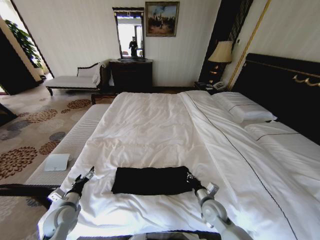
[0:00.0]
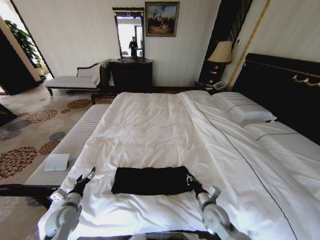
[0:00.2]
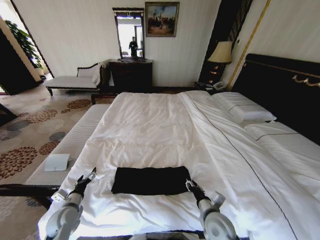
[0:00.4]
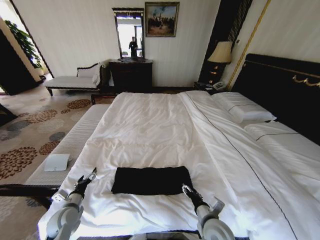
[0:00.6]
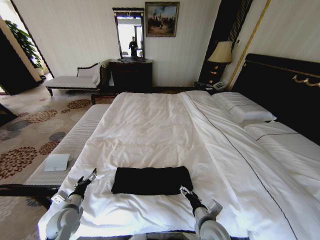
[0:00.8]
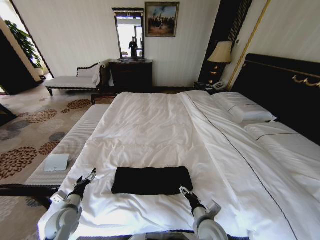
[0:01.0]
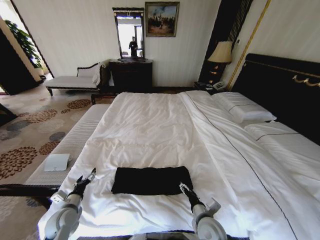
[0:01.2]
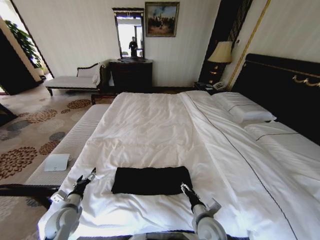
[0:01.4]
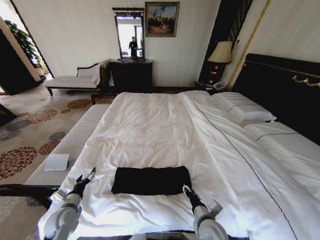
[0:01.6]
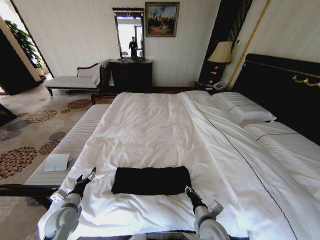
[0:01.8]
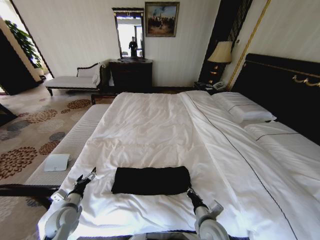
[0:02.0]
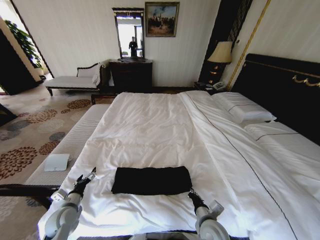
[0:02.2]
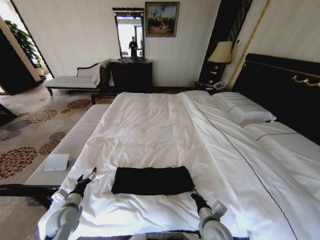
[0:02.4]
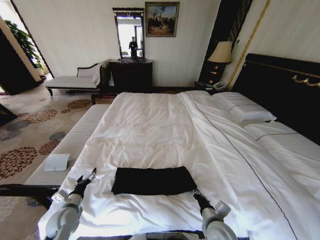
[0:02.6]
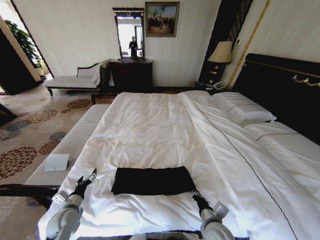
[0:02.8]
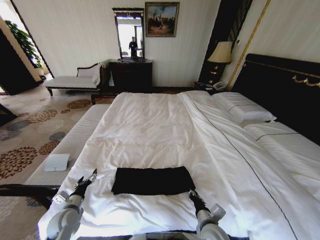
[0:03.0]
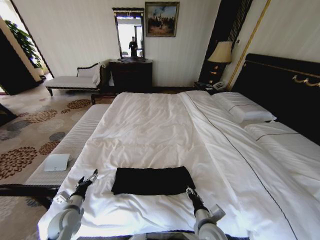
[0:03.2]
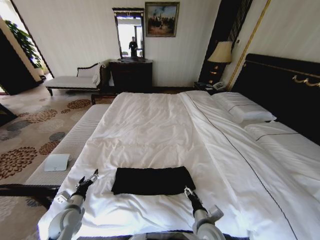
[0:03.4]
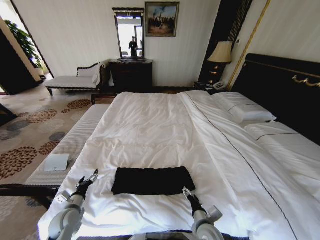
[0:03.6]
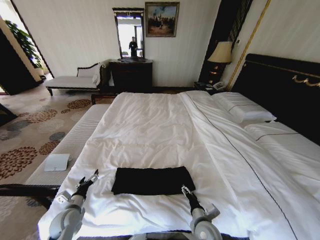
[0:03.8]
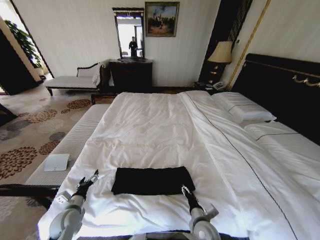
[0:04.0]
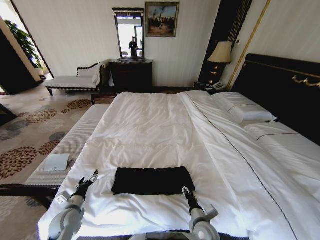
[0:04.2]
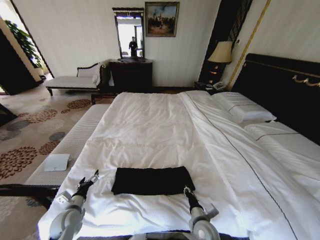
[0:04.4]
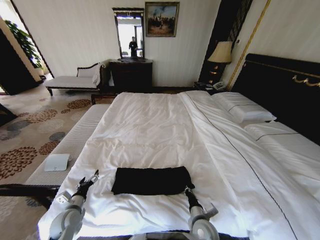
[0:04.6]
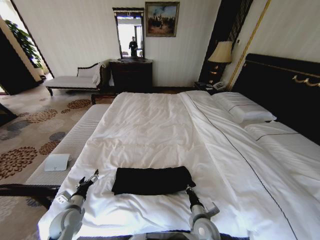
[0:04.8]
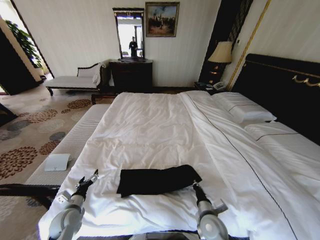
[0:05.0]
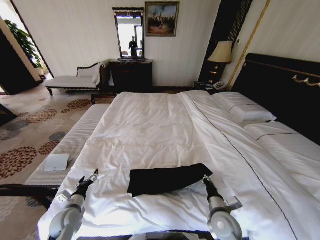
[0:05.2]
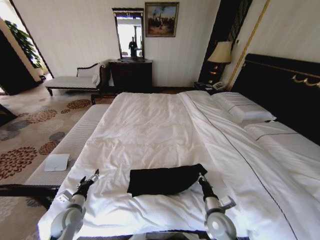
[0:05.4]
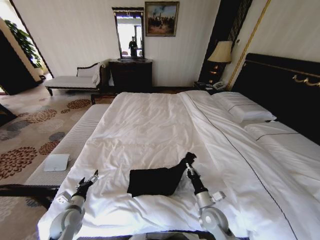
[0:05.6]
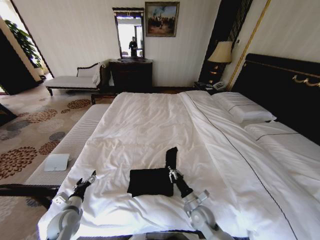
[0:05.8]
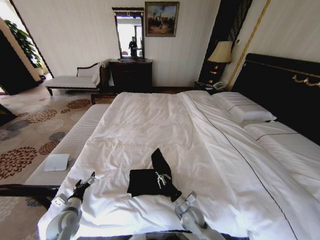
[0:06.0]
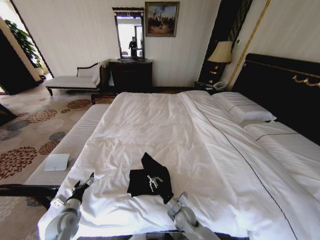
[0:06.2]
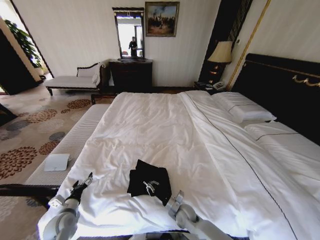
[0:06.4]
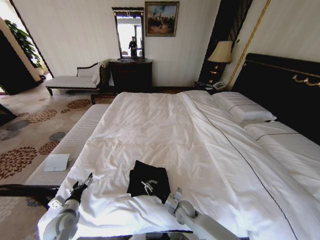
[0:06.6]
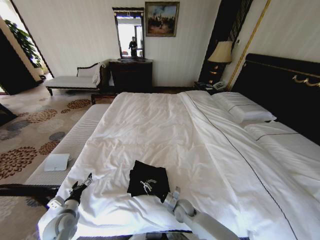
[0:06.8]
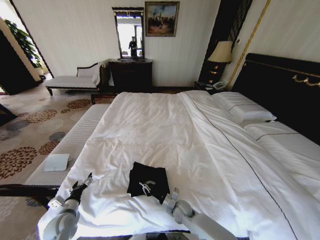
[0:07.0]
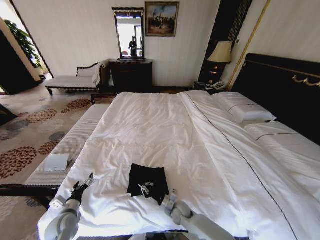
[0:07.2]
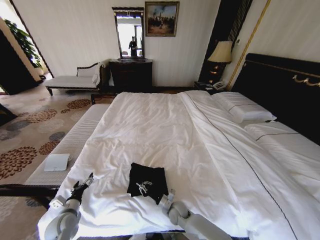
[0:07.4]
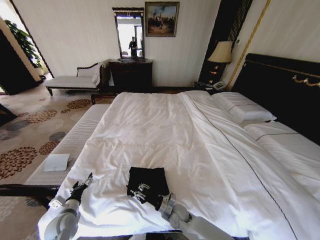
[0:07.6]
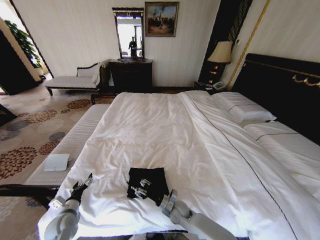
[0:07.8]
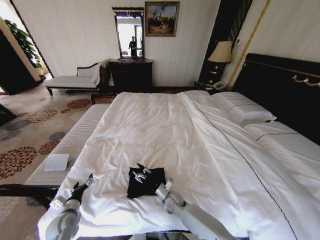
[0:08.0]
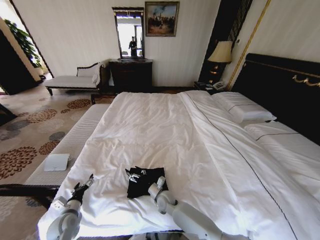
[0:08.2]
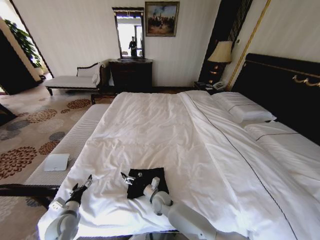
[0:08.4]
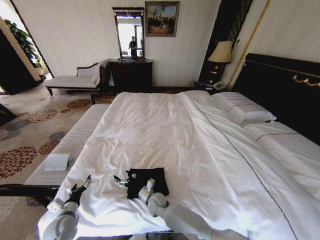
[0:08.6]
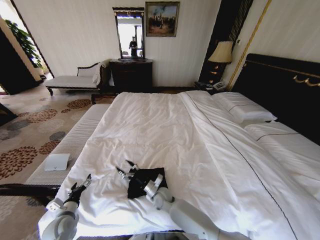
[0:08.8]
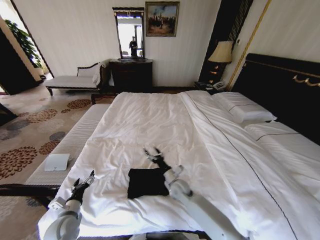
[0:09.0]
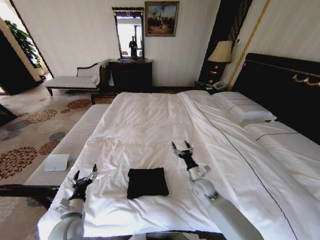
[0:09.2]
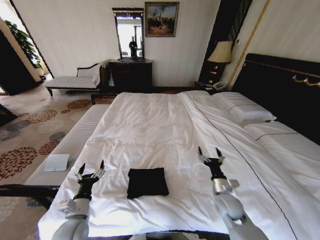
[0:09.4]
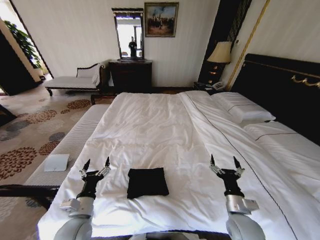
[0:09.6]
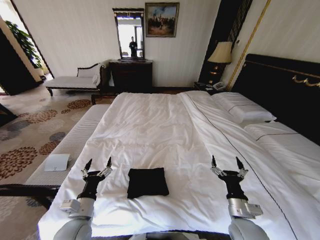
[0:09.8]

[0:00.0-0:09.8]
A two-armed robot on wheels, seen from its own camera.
Task of the whole recording: Fold the clothes on the bed.
0:00.0 to 0:01.4: The right gripper moves backward and to the left, about 10 cm, and opens up.
0:01.4 to 0:02.8: The right gripper closes.
0:02.8 to 0:04.2: The right gripper is displaced downward by approximately 5 cm, and opens its fingers.
0:04.2 to 0:05.6: The right gripper changes place by some 5 cm, and closes its fingers.
0:05.6 to 0:07.0: The right gripper heads to the left, downward and forward, covering approximately 15 cm.
0:07.0 to 0:08.4: The right gripper goes roughly 10 cm to the left, and opens up.
0:08.4 to 0:09.8: The left gripper is displaced to the right and upward by roughly 15 cm. The right gripper heads to the right, upward and backward, covering approximately 35 cm.

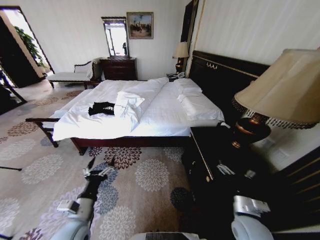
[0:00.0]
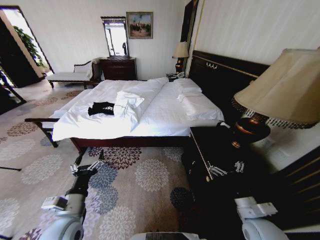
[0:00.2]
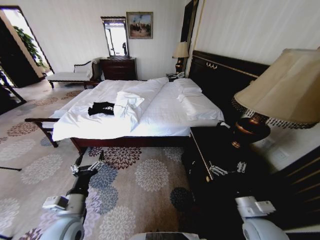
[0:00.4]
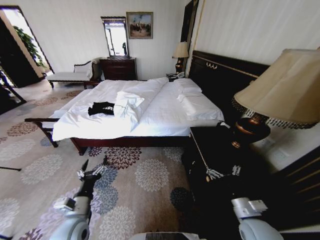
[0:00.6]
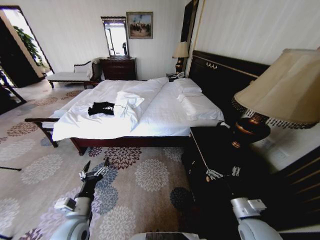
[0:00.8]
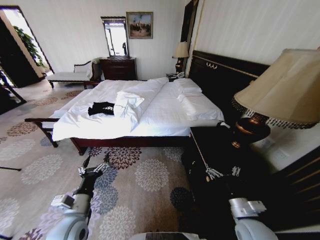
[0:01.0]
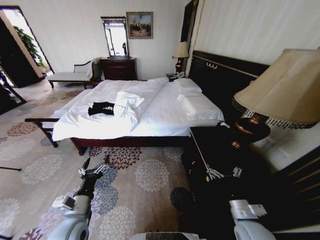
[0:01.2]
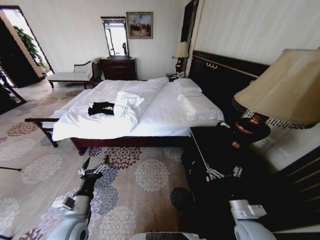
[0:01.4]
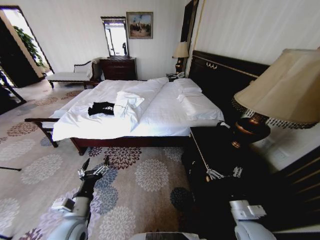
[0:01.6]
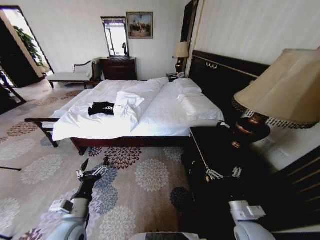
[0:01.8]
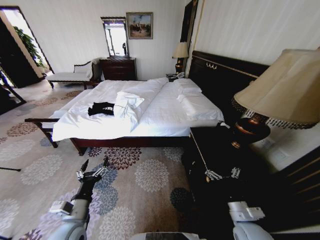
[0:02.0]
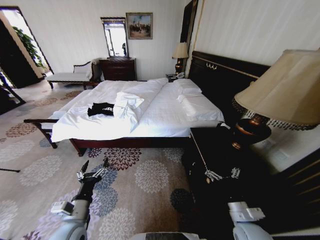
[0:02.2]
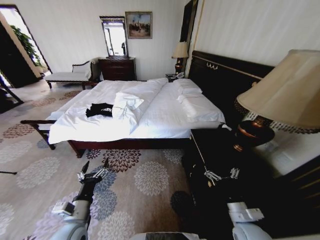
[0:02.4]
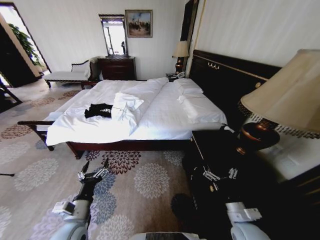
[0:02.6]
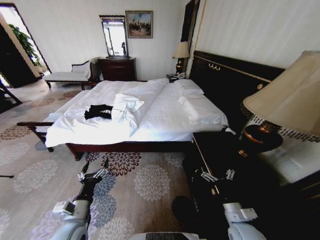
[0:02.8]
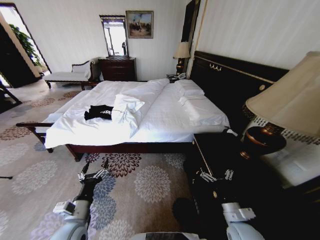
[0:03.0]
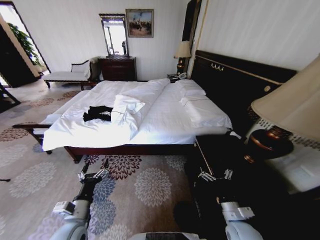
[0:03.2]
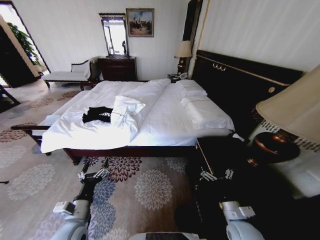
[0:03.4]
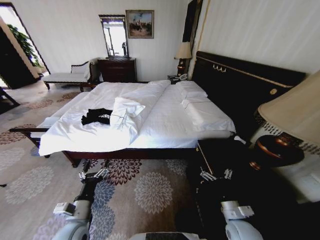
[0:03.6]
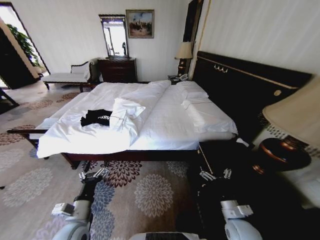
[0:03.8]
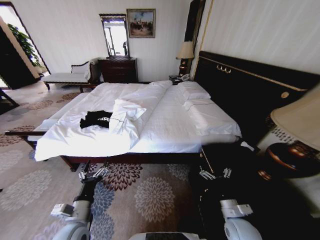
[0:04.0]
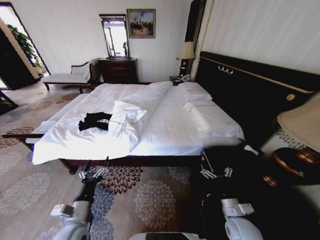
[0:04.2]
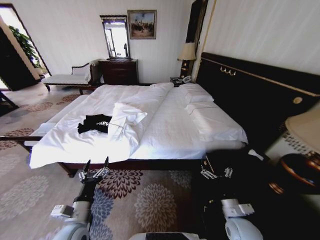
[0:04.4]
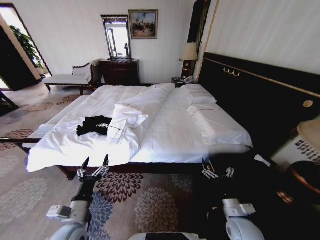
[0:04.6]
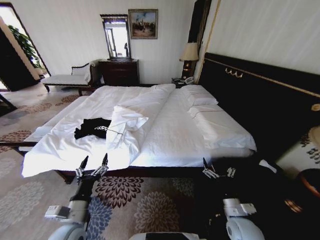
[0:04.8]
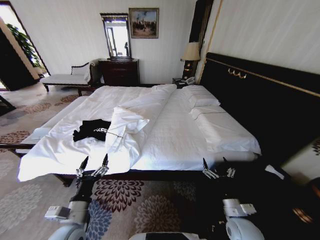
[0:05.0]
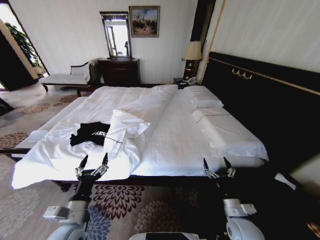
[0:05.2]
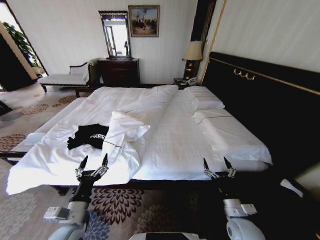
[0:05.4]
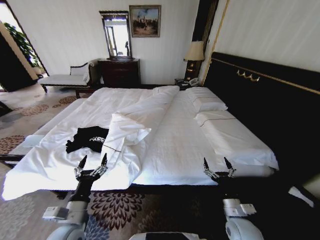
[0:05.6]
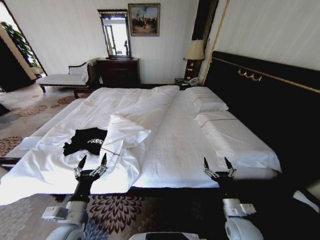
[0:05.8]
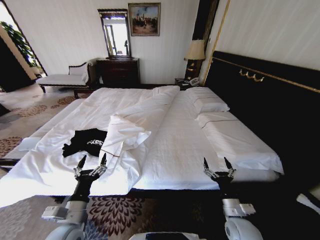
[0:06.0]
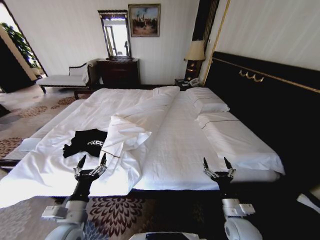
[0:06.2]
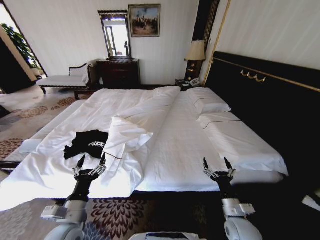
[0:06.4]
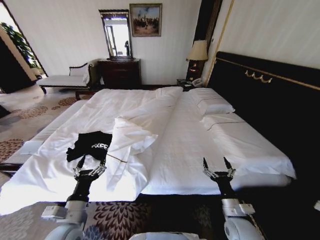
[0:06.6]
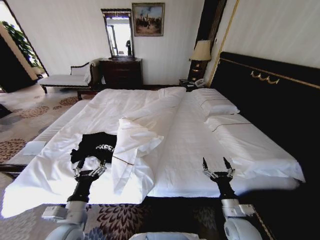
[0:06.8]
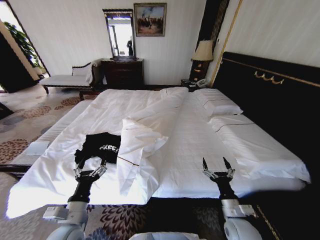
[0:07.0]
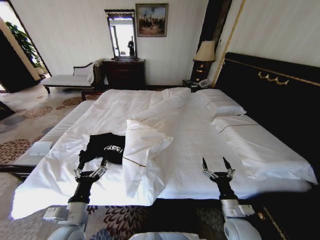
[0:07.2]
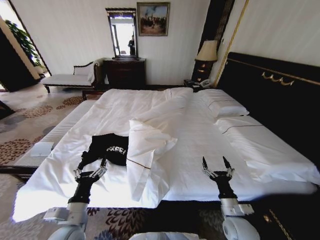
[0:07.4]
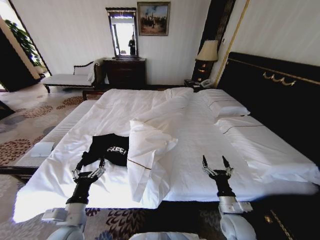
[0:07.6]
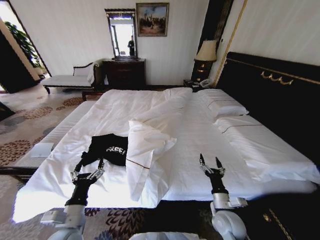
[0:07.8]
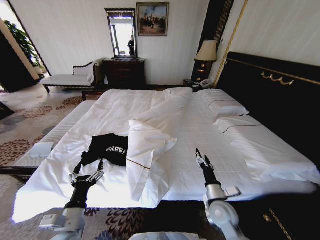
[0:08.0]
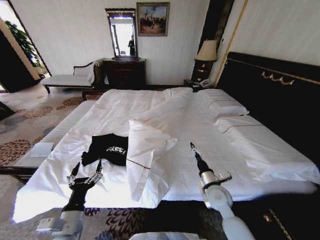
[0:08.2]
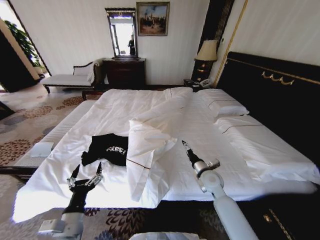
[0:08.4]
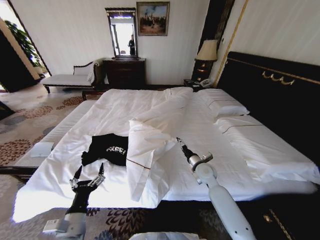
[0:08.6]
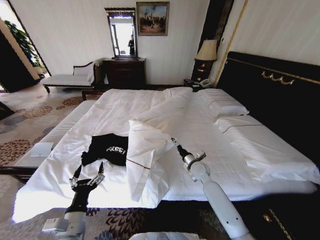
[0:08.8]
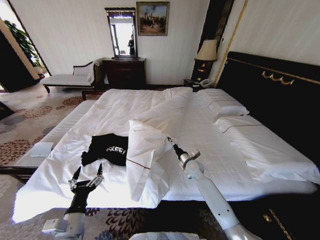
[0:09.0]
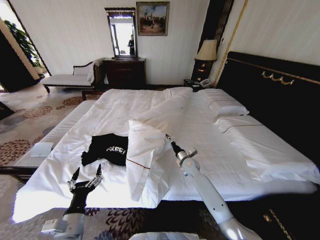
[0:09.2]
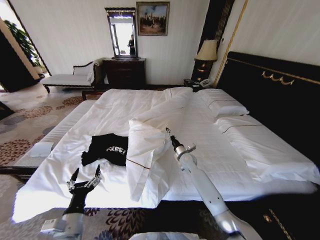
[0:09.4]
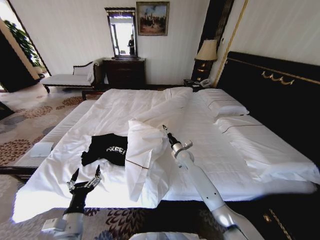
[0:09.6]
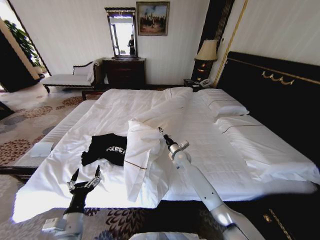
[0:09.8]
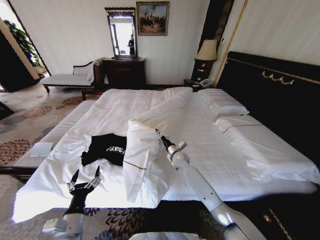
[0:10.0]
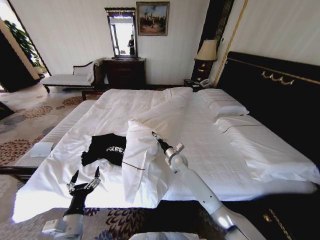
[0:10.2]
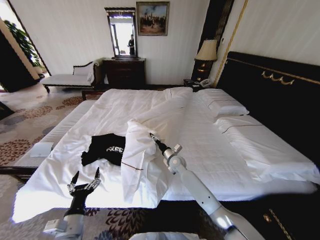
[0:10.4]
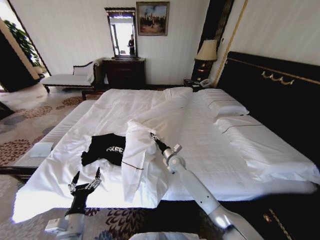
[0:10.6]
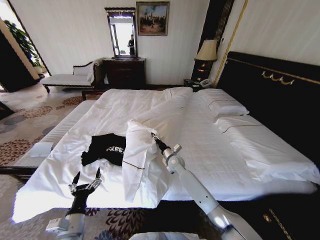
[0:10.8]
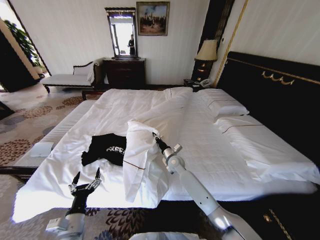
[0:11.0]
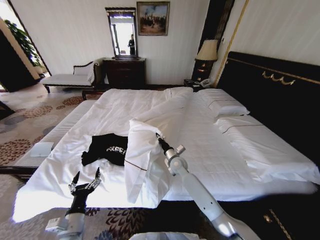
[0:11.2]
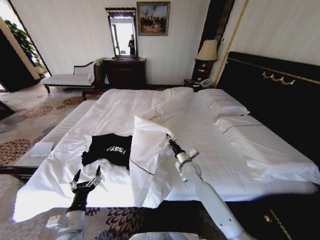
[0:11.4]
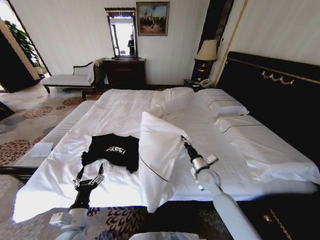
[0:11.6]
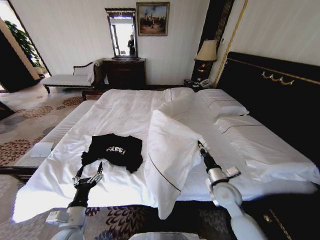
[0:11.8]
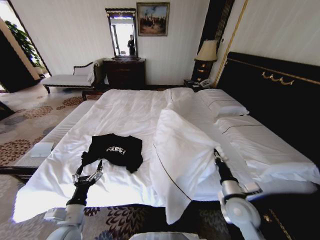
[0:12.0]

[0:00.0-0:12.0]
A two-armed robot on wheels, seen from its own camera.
Task of the whole recording: Fold the clothes on the bed.
0:07.6 to 0:09.0: The right gripper moves forward, approximately 25 cm.
0:09.0 to 0:10.4: The right gripper goes approximately 10 cm to the left.
0:10.4 to 0:12.0: The right gripper shifts approximately 30 cm backward and to the right, and closes up.
